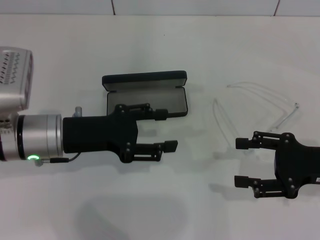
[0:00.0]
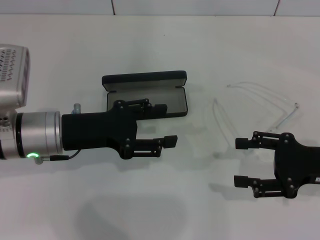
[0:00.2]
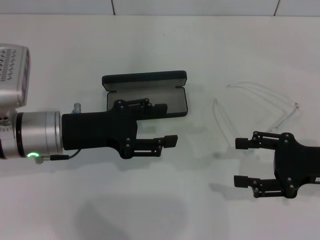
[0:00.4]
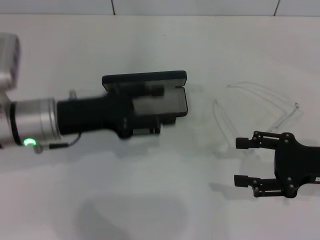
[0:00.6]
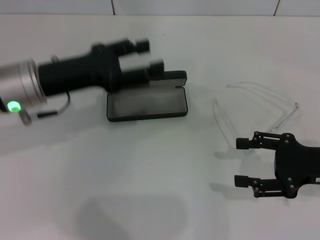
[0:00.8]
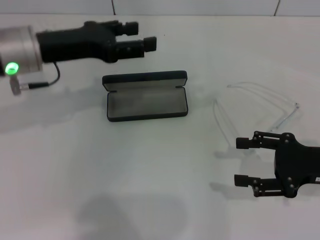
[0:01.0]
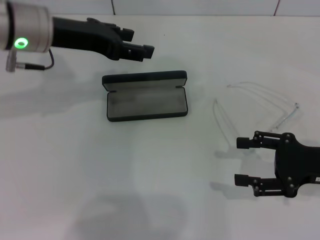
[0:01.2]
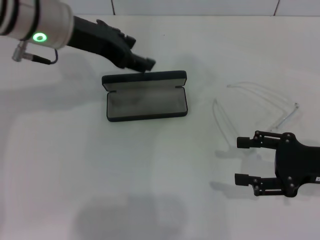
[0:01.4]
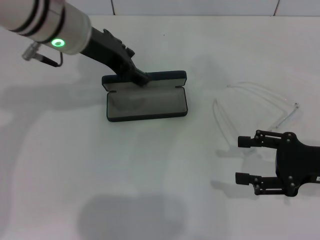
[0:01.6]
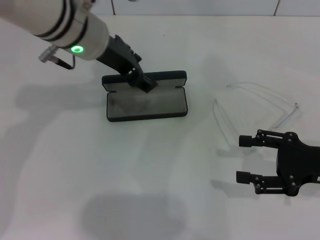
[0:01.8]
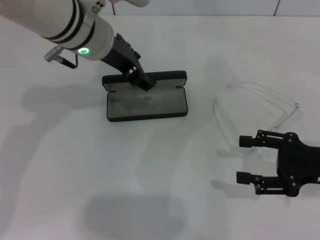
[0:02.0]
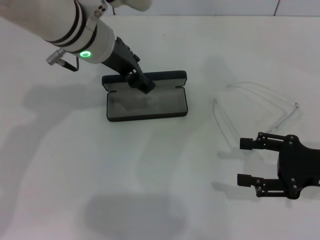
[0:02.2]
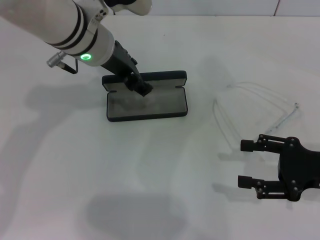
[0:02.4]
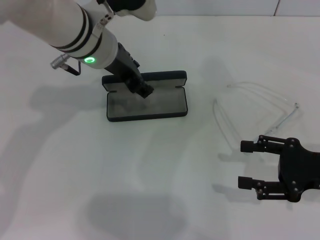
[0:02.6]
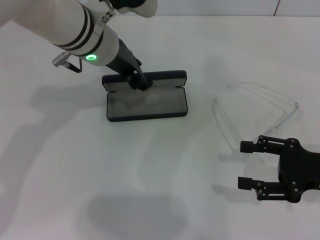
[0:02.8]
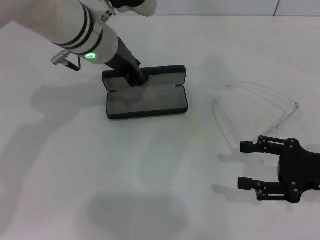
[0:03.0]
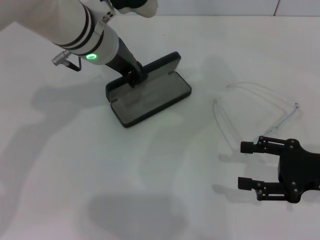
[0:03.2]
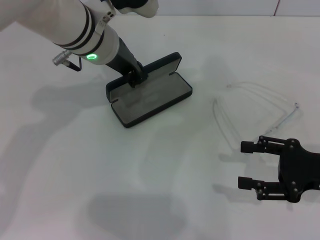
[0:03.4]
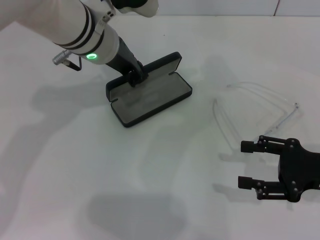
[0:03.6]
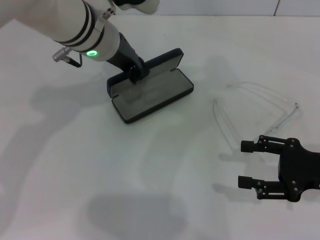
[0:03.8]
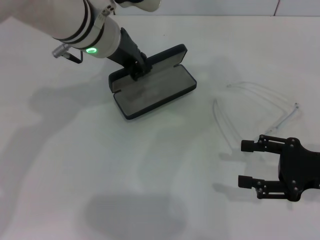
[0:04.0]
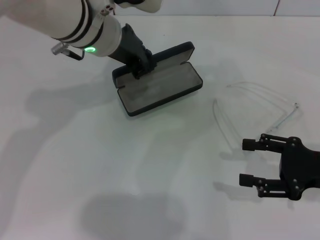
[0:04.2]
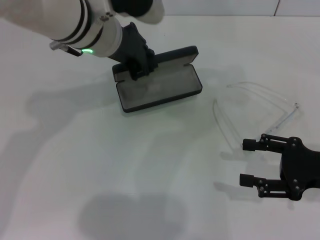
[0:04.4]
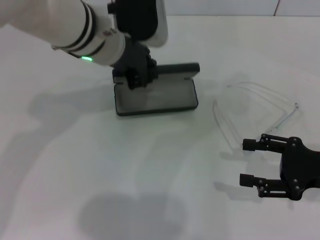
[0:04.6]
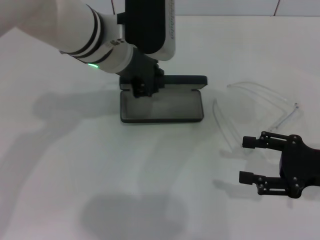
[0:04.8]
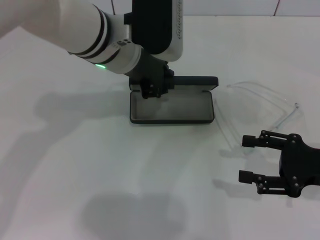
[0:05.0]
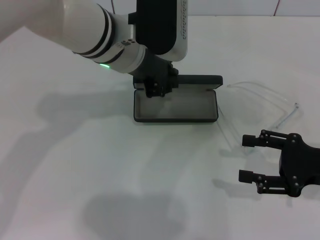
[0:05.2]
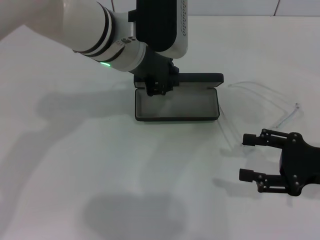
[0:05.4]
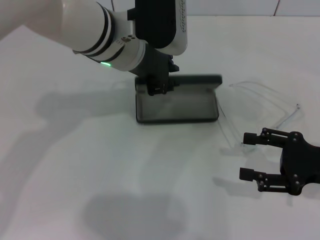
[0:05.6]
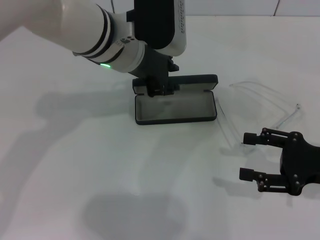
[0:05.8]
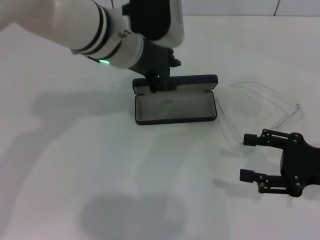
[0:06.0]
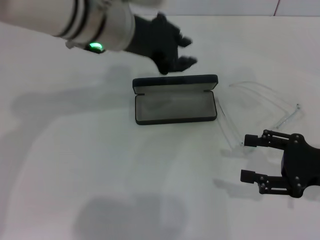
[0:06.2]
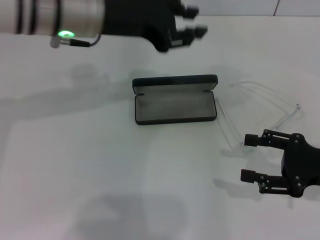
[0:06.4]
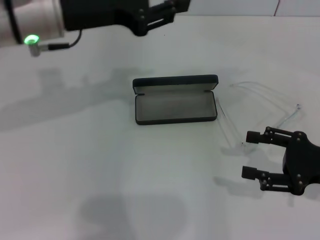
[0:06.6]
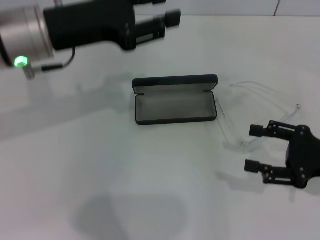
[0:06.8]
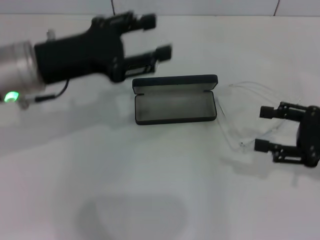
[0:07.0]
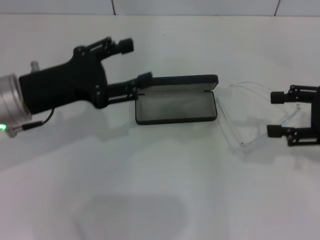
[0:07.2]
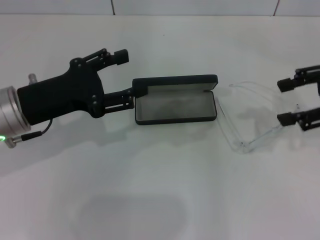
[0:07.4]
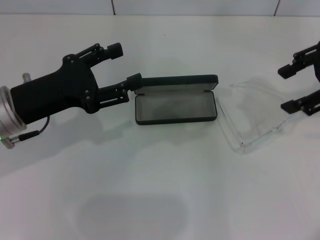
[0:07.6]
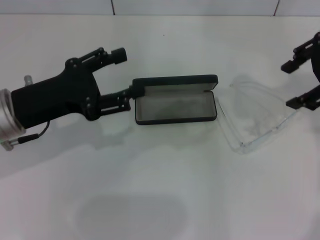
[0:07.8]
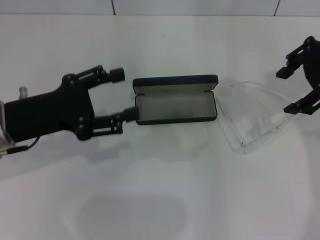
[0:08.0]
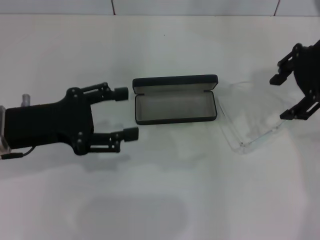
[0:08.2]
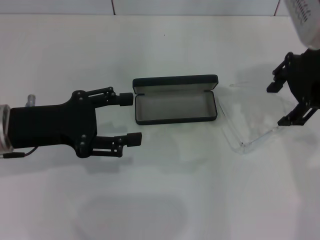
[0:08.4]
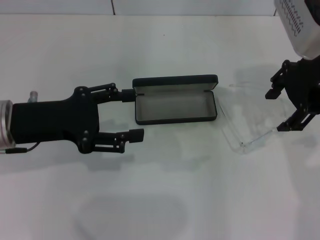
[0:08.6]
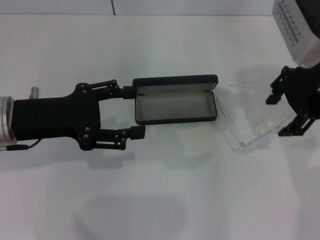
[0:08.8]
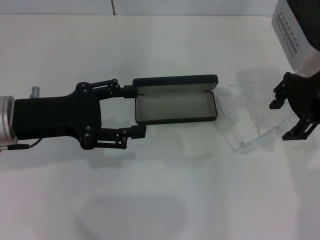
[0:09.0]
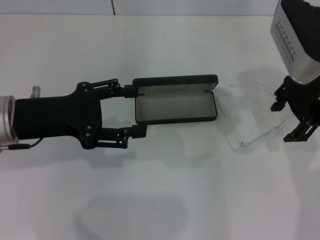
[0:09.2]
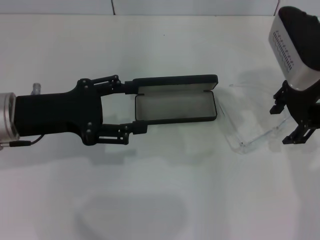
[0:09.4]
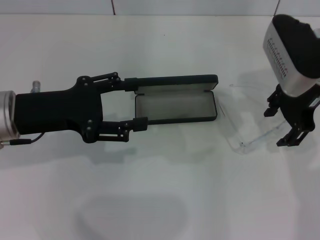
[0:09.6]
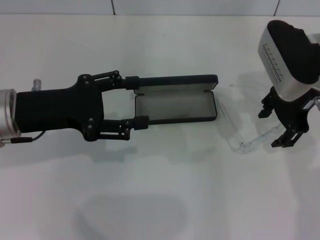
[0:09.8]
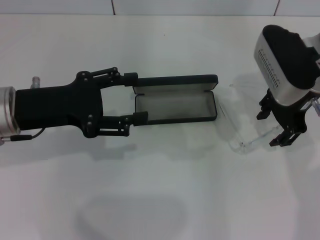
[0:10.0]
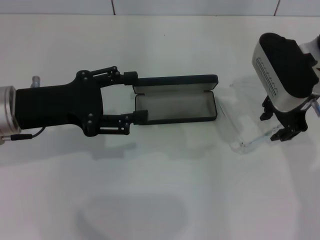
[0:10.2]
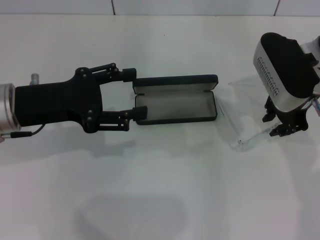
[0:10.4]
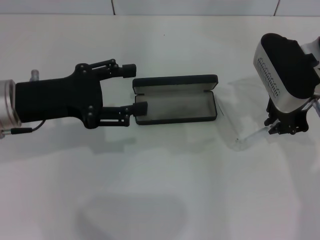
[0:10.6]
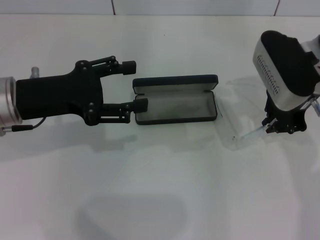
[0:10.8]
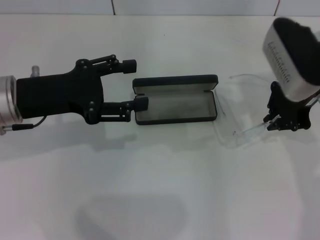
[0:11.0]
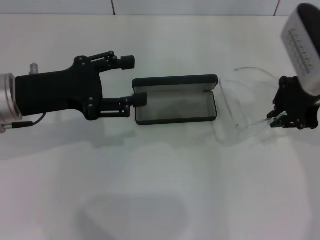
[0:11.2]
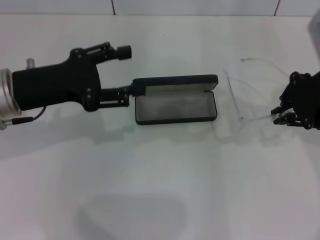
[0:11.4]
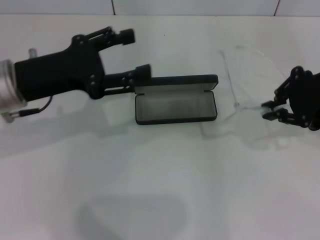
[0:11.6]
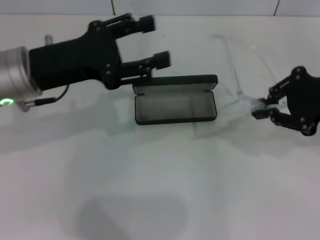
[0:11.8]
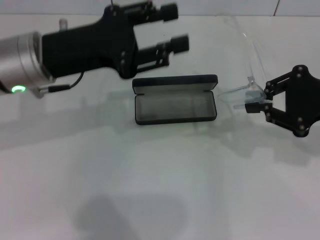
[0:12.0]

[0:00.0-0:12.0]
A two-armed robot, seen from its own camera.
Step, 0:00.0 to 0:02.8: Grab the glasses case with your left hand.
Step, 0:03.0 to 0:05.6: Place the glasses case in the center of the table with your left hand.
Step, 0:06.0 to 0:10.4: Grab the eyeglass frame with your right hand.
0:00.0 to 0:01.6: The left gripper goes some 15 cm upward, forward and to the right.
0:01.6 to 0:03.0: There are only small adjustments of the grippers.
0:03.0 to 0:04.4: The left gripper closes its fingers.
0:04.4 to 0:06.0: There are only small adjustments of the grippers.
0:06.0 to 0:07.6: The left gripper heads to the left, backward and downward, covering about 20 cm, and opens, while the right gripper shifts some 20 cm upward and forward.
0:07.6 to 0:09.0: The right gripper travels to the left by approximately 10 cm.
0:09.0 to 0:10.4: The right gripper shifts about 5 cm downward.
0:10.4 to 0:12.0: The left gripper changes place by about 5 cm; the right gripper shifts roughly 15 cm to the right and backward, and closes.

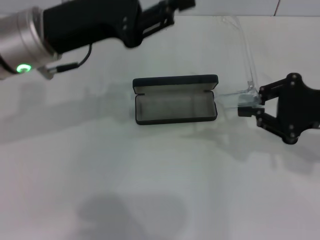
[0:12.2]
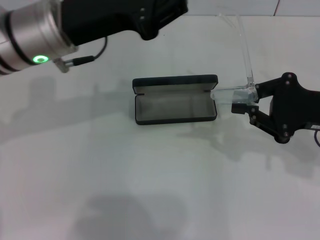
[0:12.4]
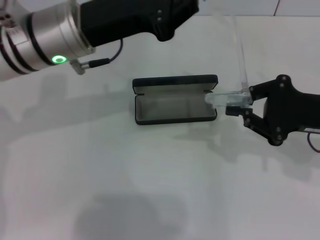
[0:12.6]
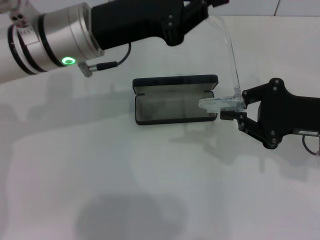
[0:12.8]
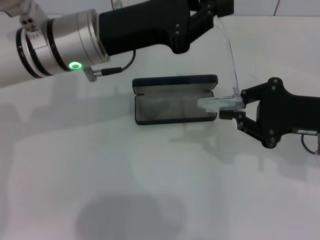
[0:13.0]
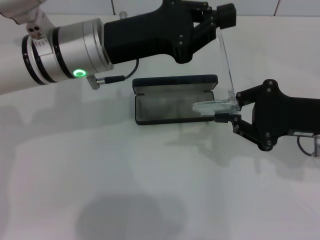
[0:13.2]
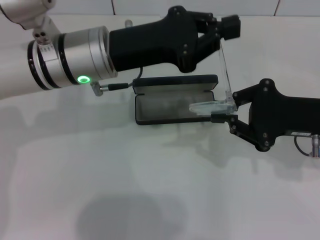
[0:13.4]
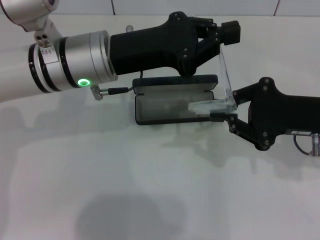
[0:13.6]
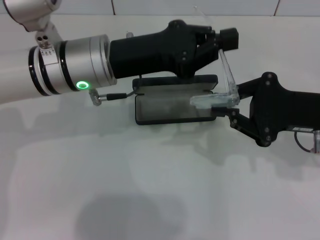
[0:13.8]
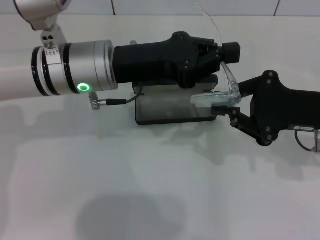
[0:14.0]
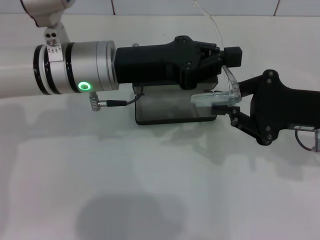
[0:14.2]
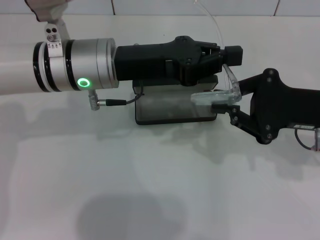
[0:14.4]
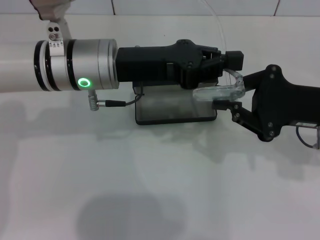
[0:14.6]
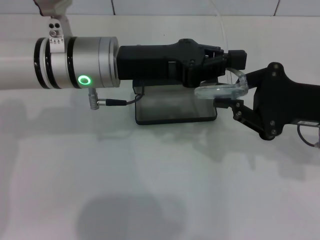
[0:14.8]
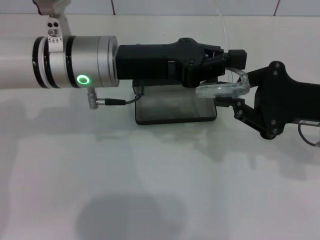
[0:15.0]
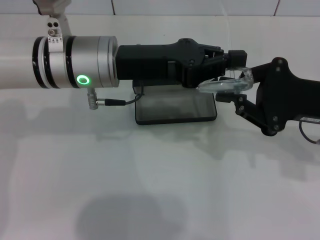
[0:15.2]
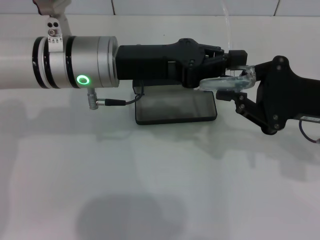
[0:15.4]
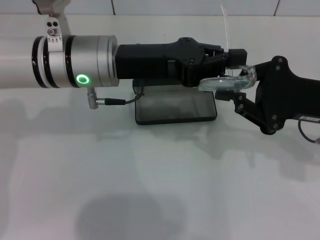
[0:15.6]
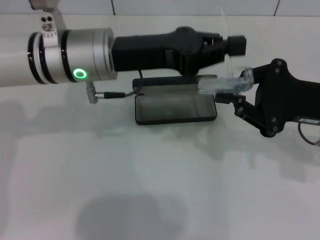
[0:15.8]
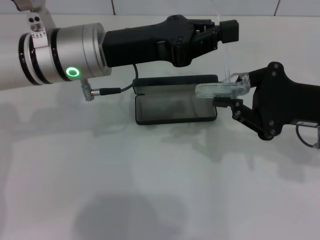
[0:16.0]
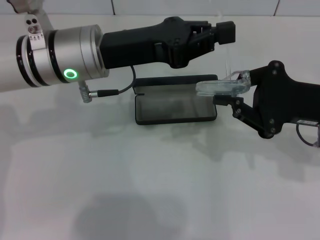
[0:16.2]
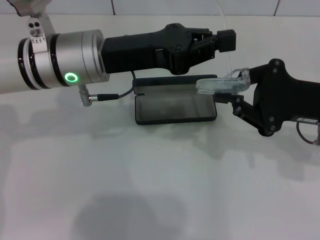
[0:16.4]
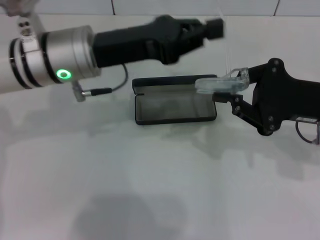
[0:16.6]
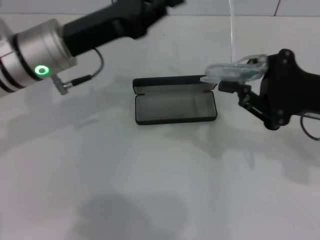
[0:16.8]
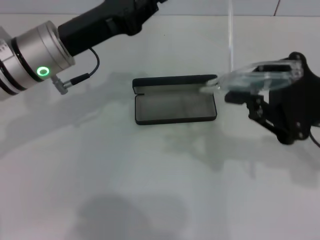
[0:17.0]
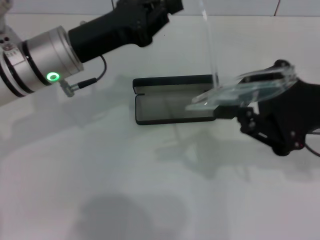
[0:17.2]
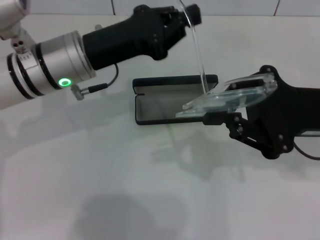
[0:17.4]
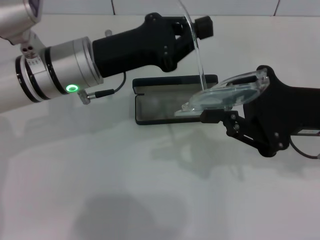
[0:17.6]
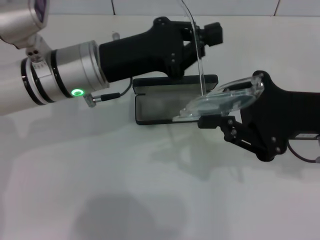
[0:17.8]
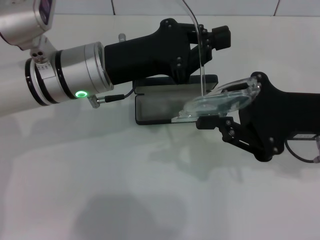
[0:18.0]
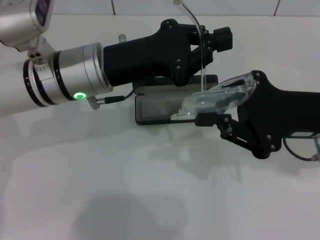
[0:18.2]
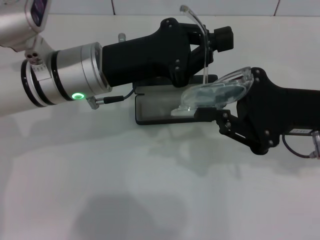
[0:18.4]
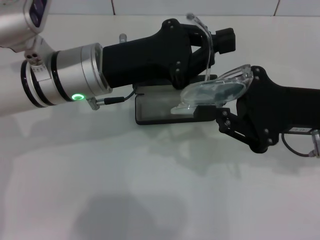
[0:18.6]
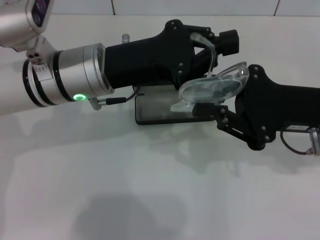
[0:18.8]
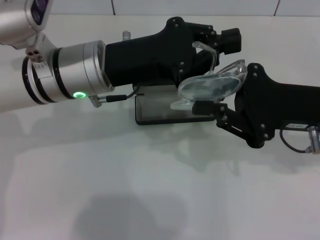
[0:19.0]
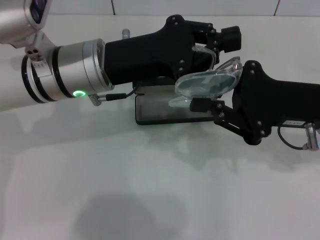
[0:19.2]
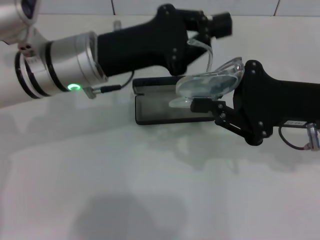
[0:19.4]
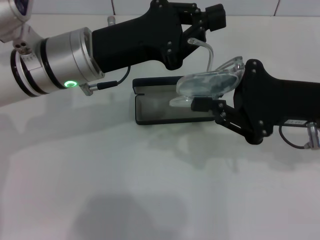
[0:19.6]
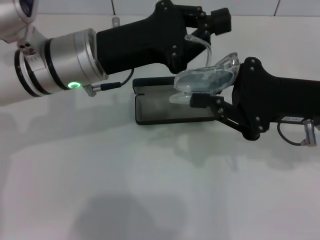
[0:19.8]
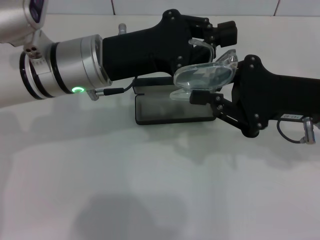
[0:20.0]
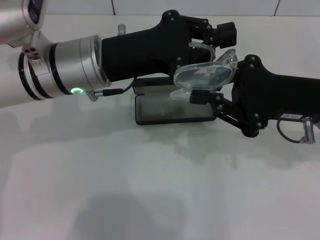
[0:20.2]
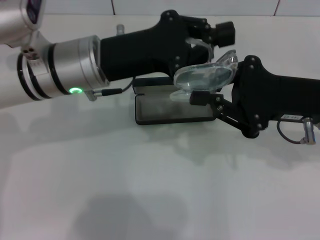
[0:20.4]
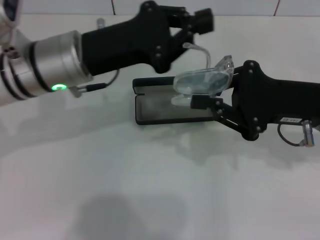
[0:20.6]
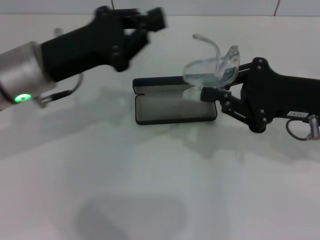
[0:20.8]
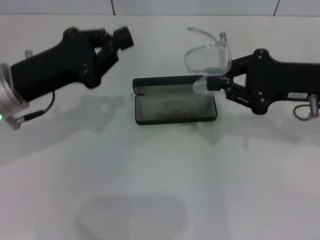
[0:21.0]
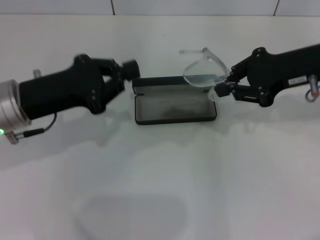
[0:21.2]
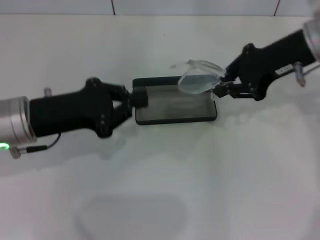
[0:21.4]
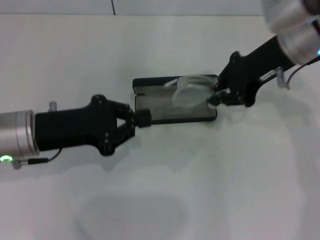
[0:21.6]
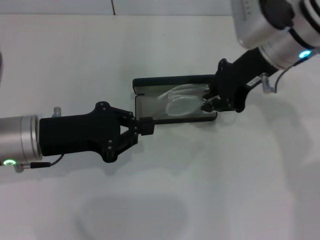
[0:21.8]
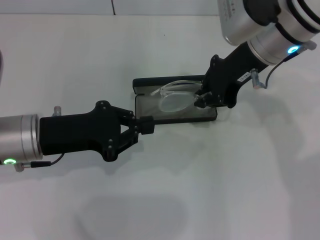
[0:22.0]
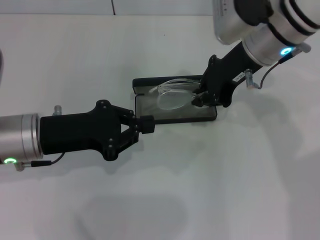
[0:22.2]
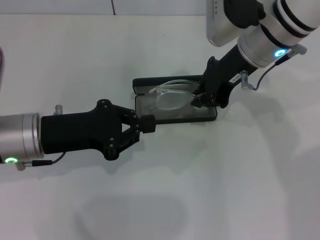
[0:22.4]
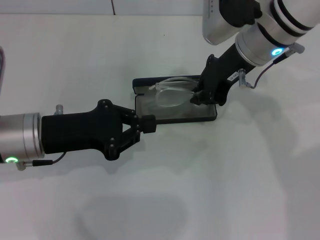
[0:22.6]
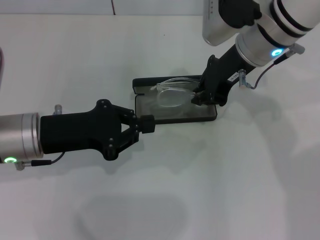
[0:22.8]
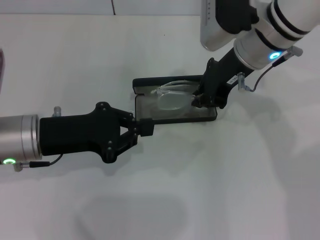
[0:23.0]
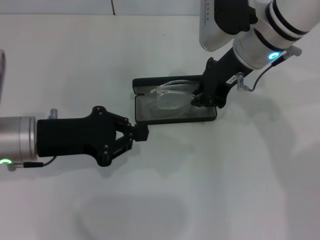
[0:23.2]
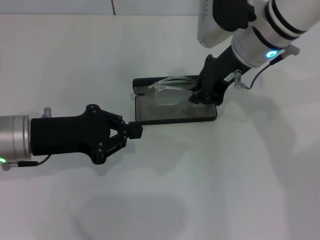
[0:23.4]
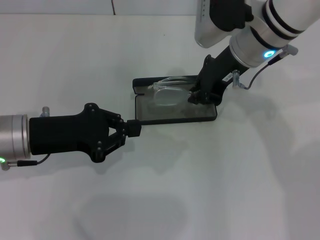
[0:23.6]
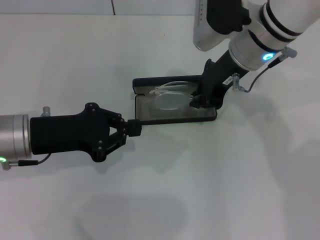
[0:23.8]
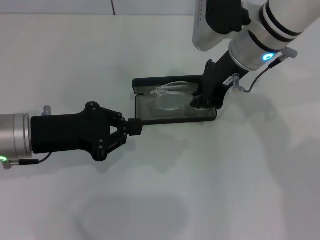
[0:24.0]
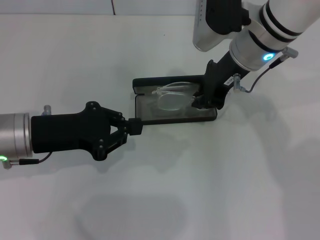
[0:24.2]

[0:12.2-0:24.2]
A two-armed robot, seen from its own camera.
Step, 0:12.2 to 0:20.0: Fold the frame with your left hand.
0:12.2 to 0:13.8: The left gripper goes roughly 5 cm to the right, and closes up.
0:13.8 to 0:15.2: The grippers make only small movements.
0:19.8 to 0:21.2: The left gripper travels to the left by approximately 10 cm. Meanwhile the right gripper heads forward, covering some 5 cm.
0:21.2 to 0:22.6: The right gripper shifts some 10 cm to the left.
0:22.6 to 0:24.2: There are only small adjustments of the grippers.
